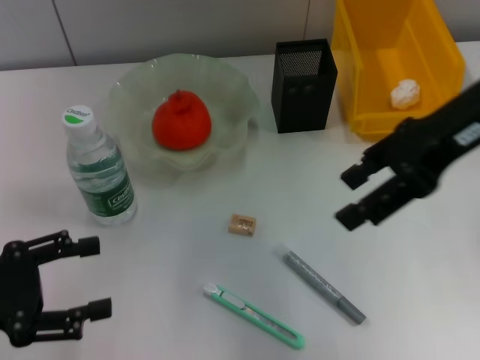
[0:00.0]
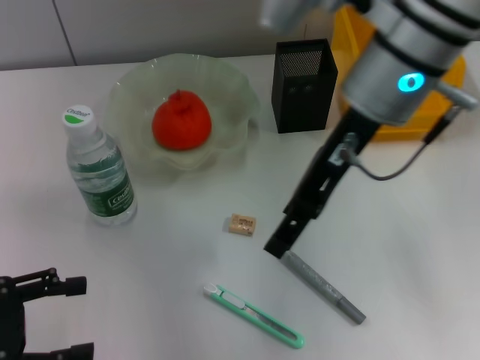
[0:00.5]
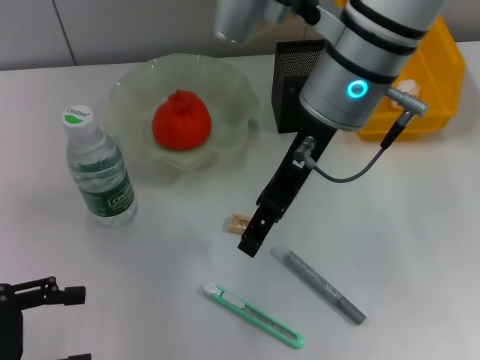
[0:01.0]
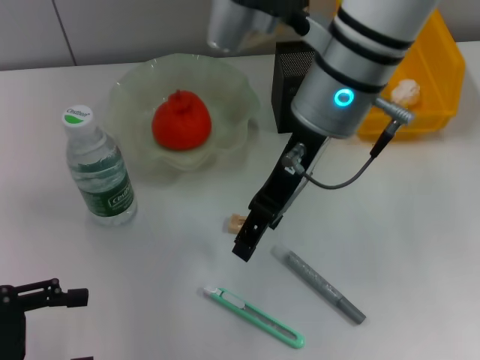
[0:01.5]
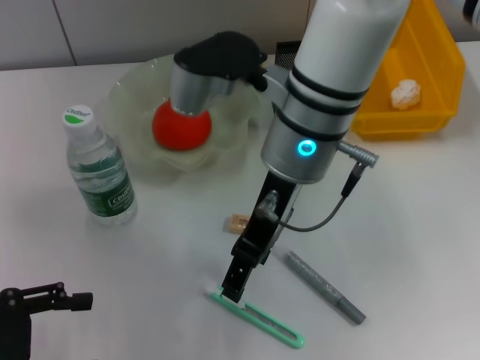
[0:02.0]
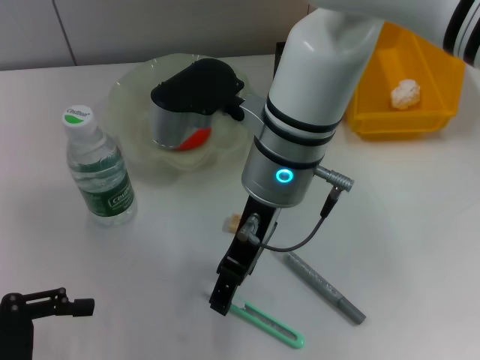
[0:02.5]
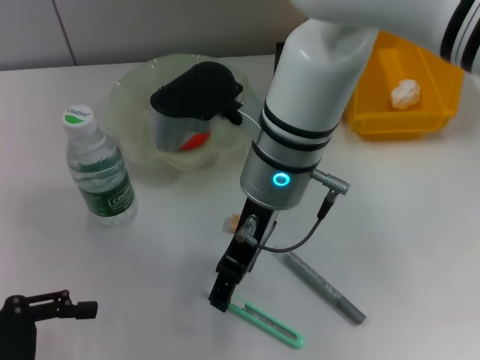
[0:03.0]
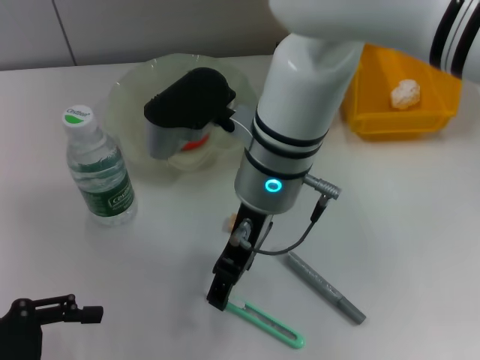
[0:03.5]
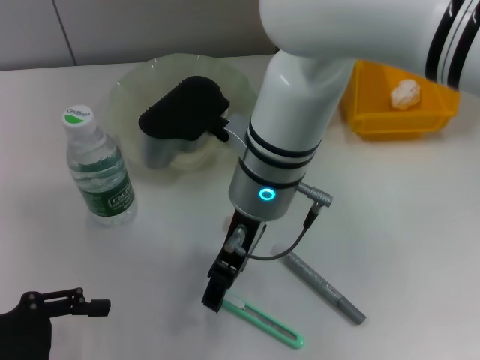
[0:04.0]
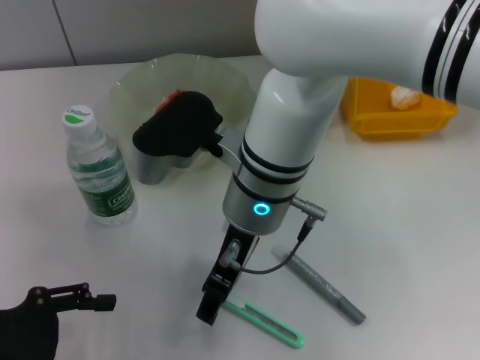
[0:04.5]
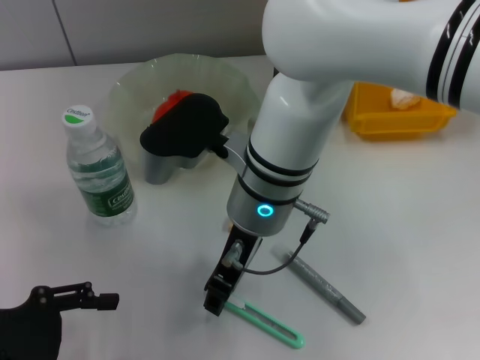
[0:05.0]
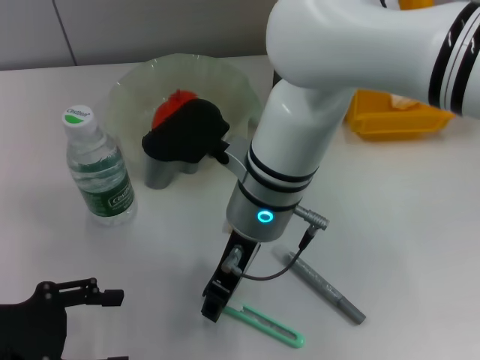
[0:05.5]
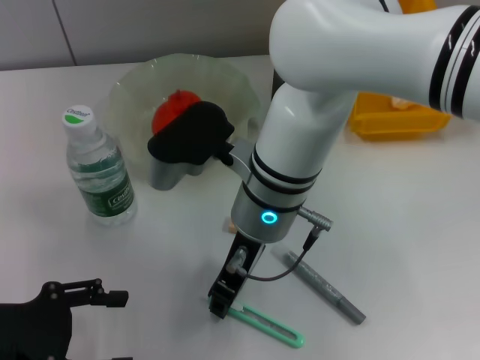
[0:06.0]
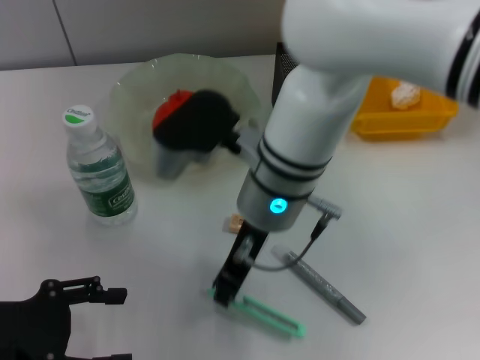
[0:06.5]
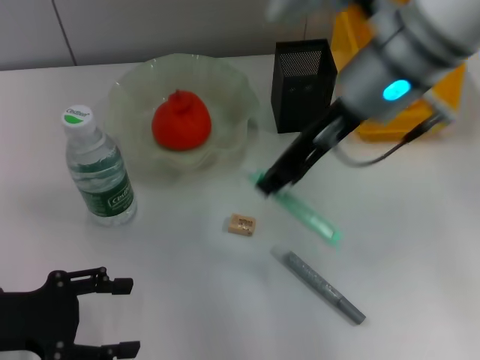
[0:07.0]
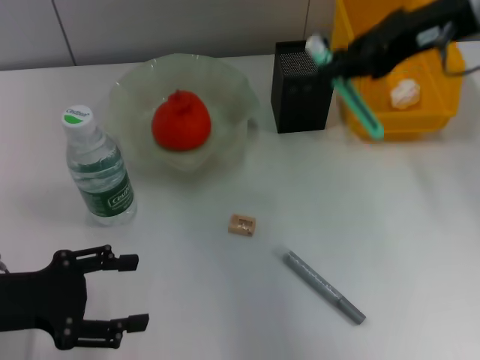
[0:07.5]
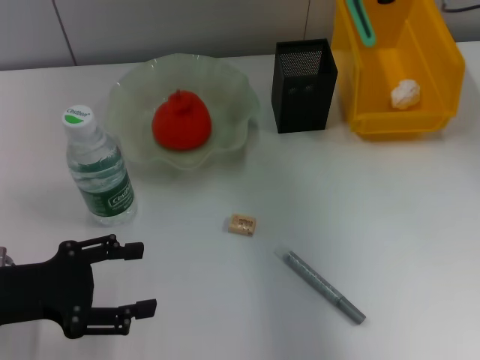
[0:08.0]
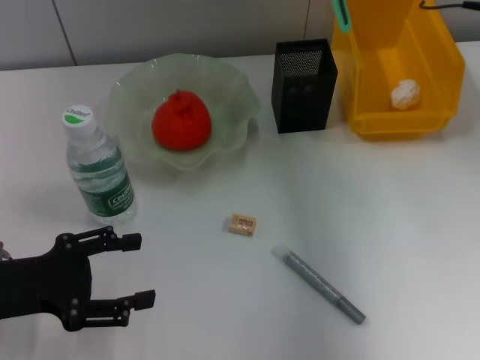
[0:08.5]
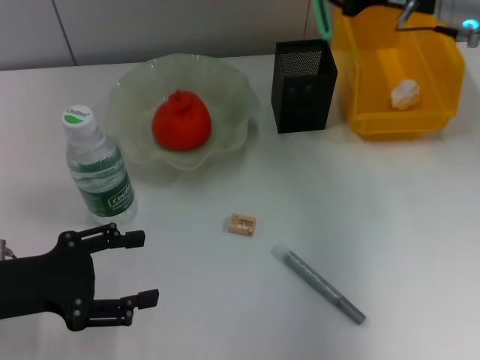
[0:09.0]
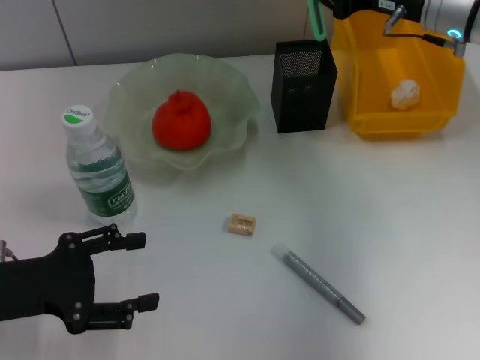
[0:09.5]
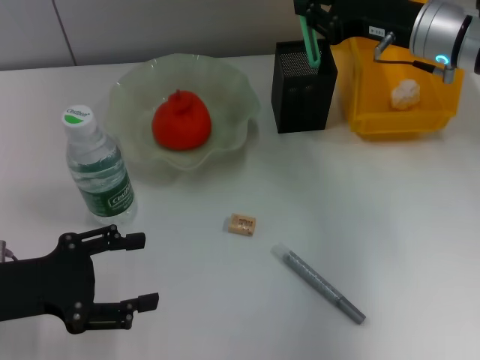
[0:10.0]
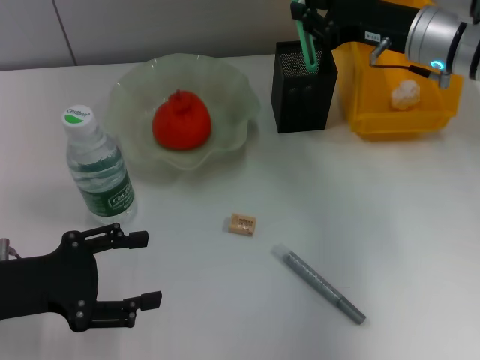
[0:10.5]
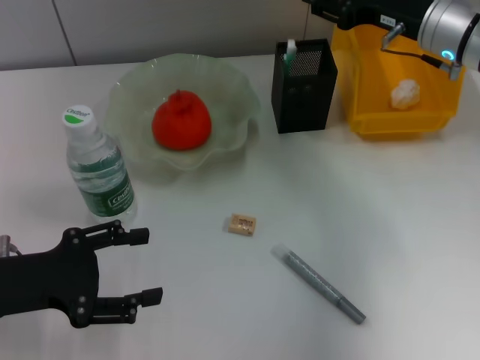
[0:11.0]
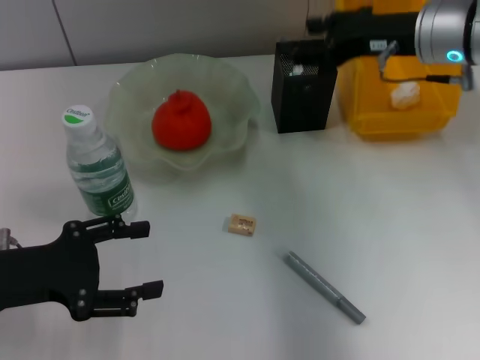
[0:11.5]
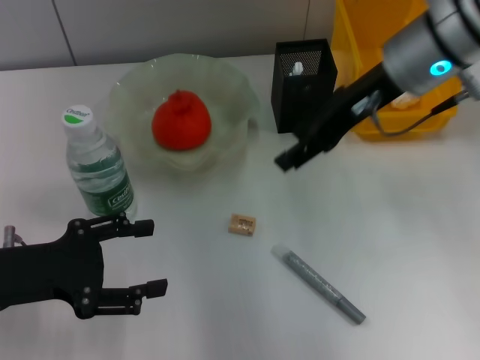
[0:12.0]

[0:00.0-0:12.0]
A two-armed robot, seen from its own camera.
Step, 0:00.0 to 0:06.0: Grab the blue utility knife with the right hand.
Step, 0:06.5 to 0:11.0: Place the blue utility knife into the pen holder with the right hand.
0:00.0 to 0:02.0: The right gripper heads to the left and downward, covering roughly 20 cm.
0:02.0 to 0:04.0: The right gripper changes place by roughly 5 cm.
0:04.0 to 0:06.0: The right gripper closes.
0:06.0 to 0:08.0: The right gripper moves to the right and upward, roughly 25 cm, and closes.
0:08.0 to 0:10.0: The right gripper heads downward, covering some 10 cm.
0:10.0 to 0:12.0: The right gripper is displaced to the left and upward by approximately 10 cm, and opens.

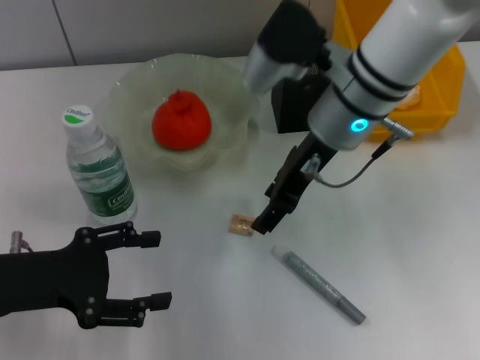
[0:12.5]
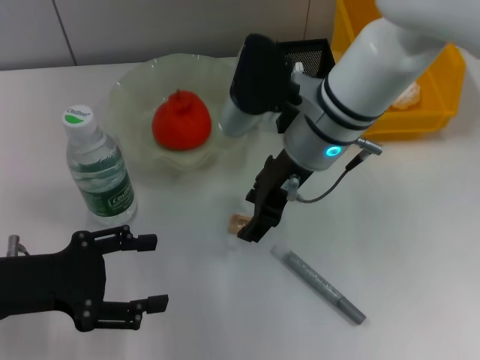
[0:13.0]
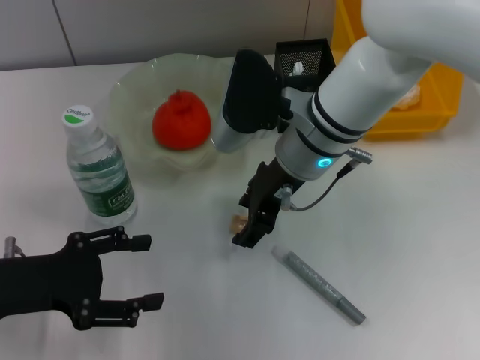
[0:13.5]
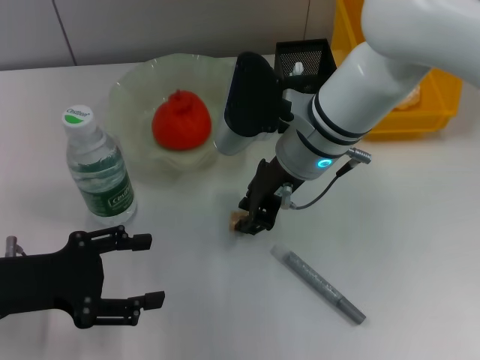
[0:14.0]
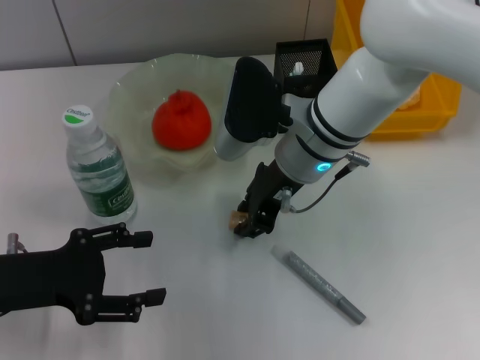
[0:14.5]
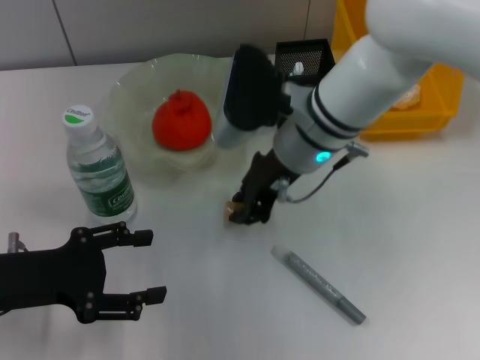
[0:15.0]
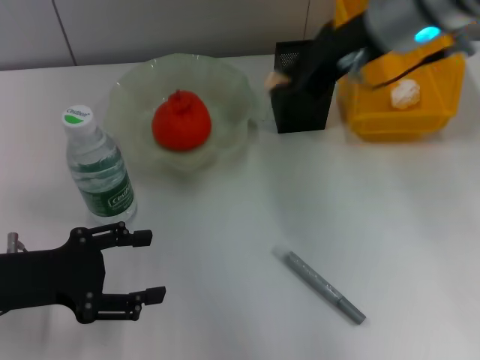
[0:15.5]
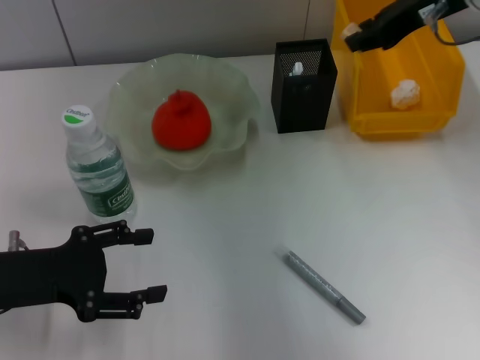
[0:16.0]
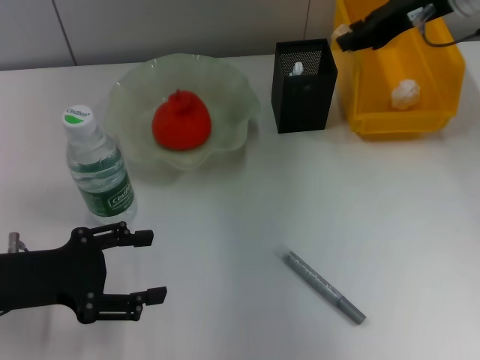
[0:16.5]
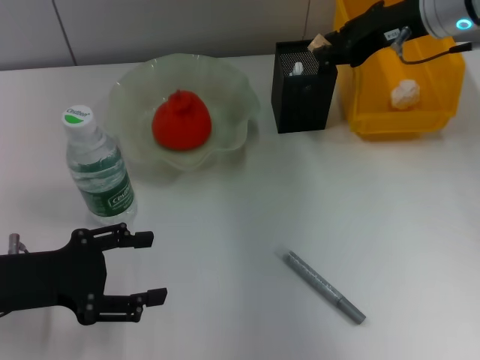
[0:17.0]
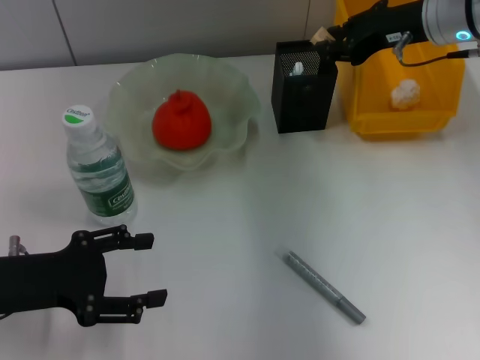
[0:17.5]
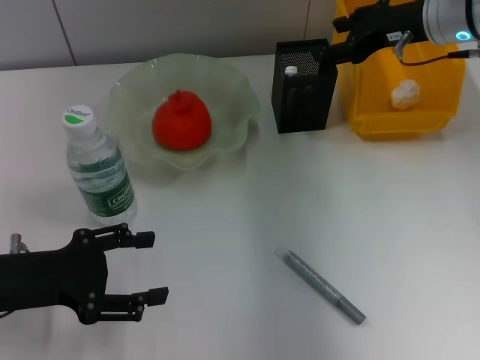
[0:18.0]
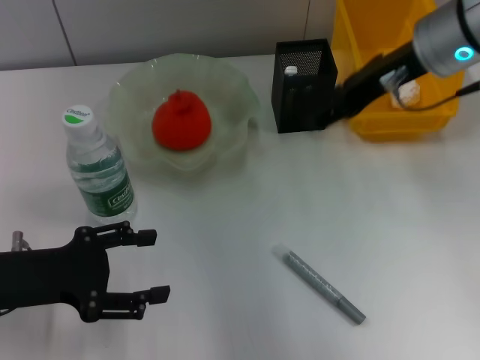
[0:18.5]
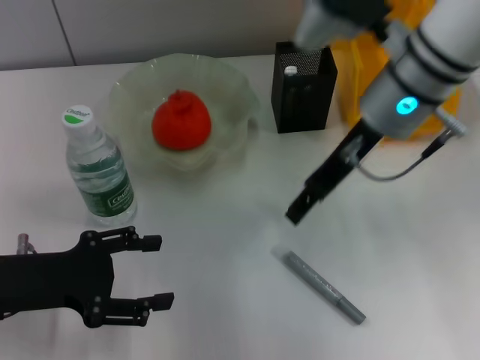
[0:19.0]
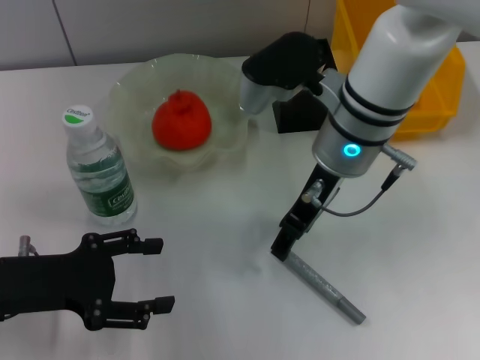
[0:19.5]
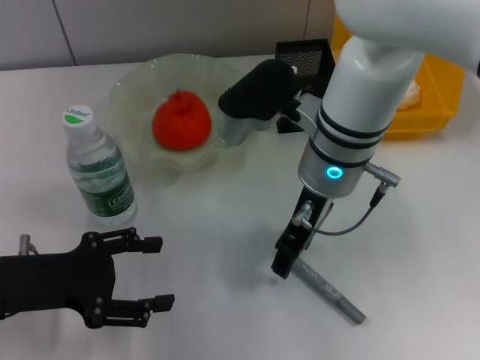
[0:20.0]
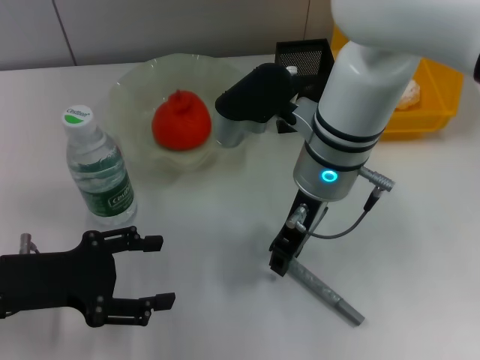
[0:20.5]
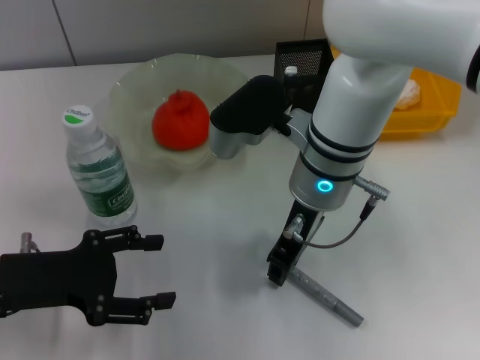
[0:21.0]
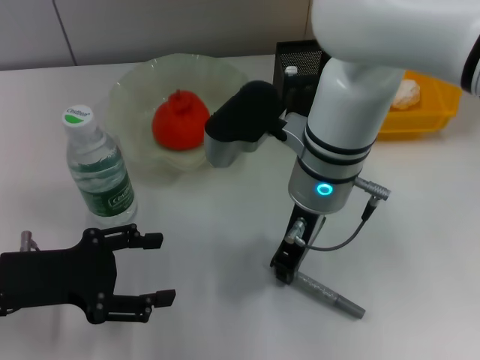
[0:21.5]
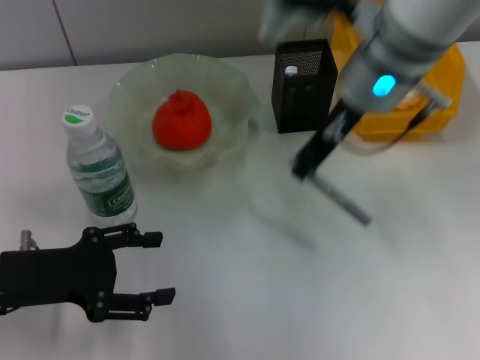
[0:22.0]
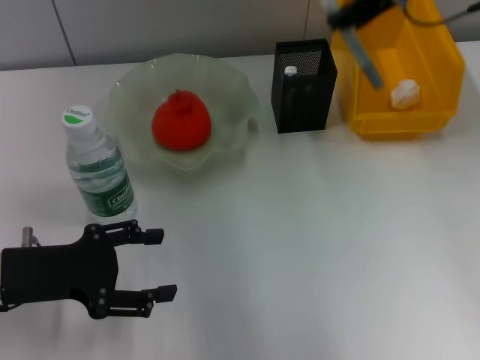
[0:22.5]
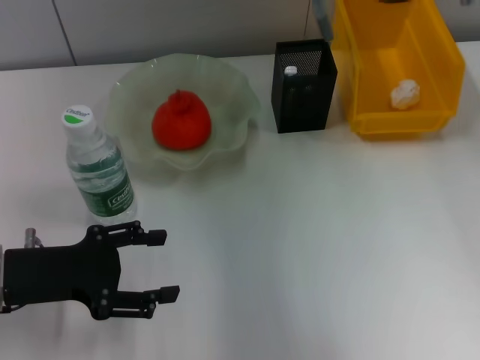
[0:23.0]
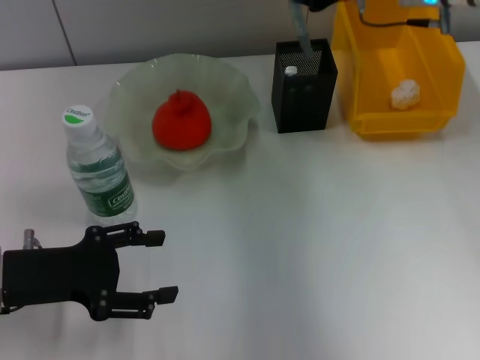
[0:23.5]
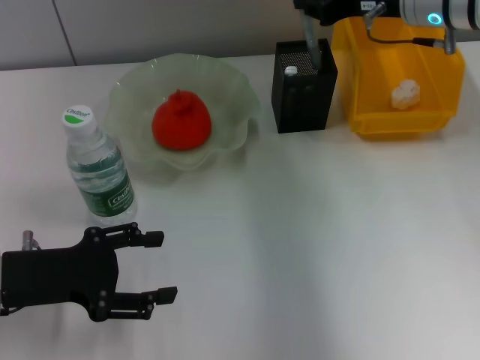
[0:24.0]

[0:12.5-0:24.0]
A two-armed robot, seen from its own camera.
Step, 0:12.5 to 0:14.5: Grab the eraser with the right hand.
Step, 0:15.0 to 0:17.5: Put the eraser into the pen holder with the right hand.
Step, 0:18.0 to 0:21.0: Grab the gray glue with the right hand.
0:12.5 to 0:14.5: The right gripper ends up roughly 5 cm from where it was, and closes its fingers.
0:14.5 to 0:16.5: The right gripper travels to the right, upward and forward by about 20 cm.
0:16.5 to 0:18.5: The right gripper travels backward by approximately 5 cm, and opens up.
0:18.5 to 0:20.0: The right gripper travels to the left and downward by approximately 15 cm.
0:20.0 to 0:22.0: The right gripper heads upward, covering roughly 5 cm, and closes up.
0:22.0 to 0:24.0: The right gripper shifts about 10 cm to the right and forward.

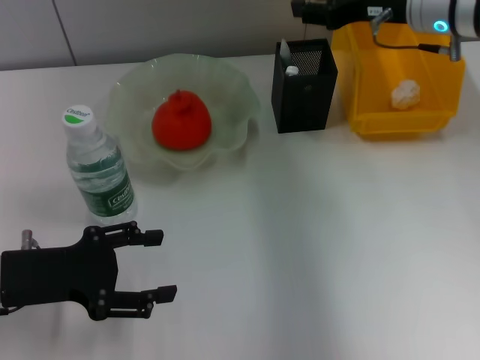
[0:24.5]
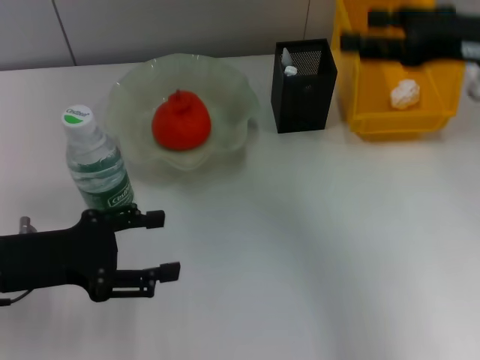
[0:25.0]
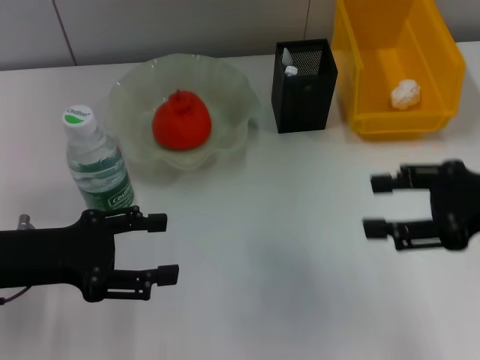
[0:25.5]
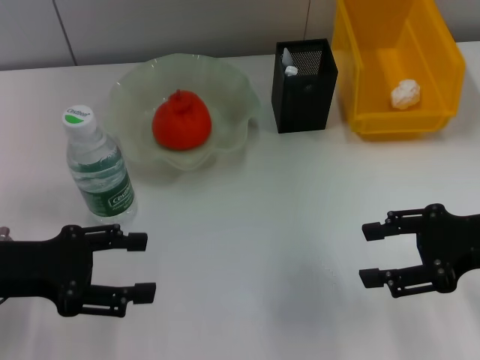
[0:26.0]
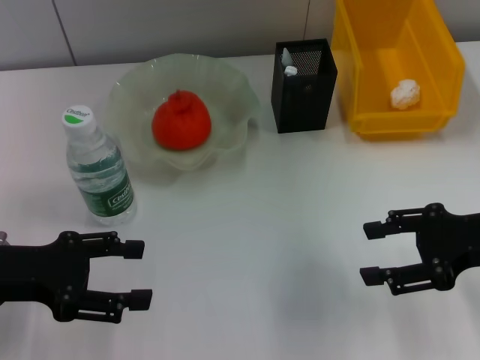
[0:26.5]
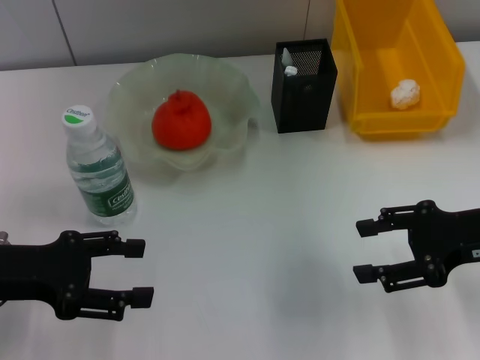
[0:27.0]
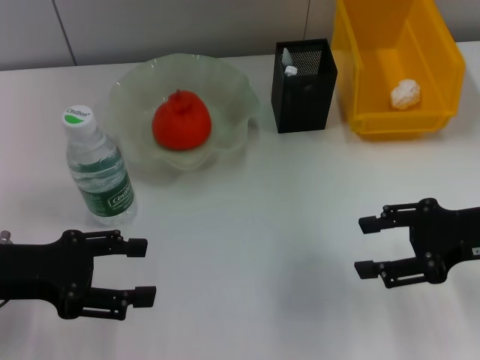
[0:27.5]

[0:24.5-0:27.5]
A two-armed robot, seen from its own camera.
0:24.5 to 0:26.0: The right gripper goes roughly 20 cm backward, and opens up.
0:26.0 to 0:27.5: The grippers move only a little.
